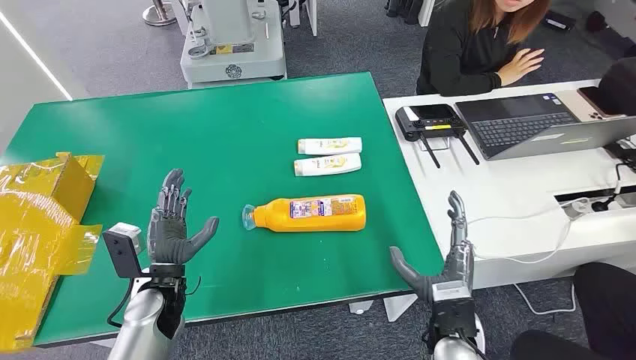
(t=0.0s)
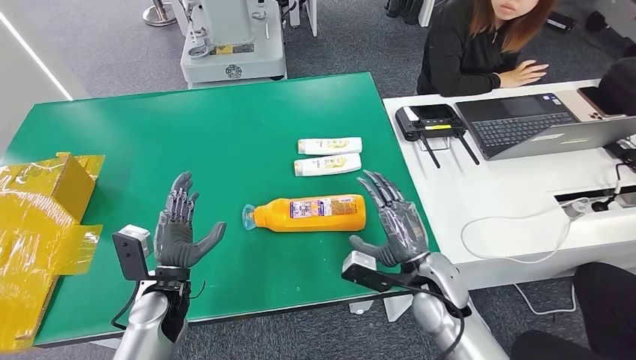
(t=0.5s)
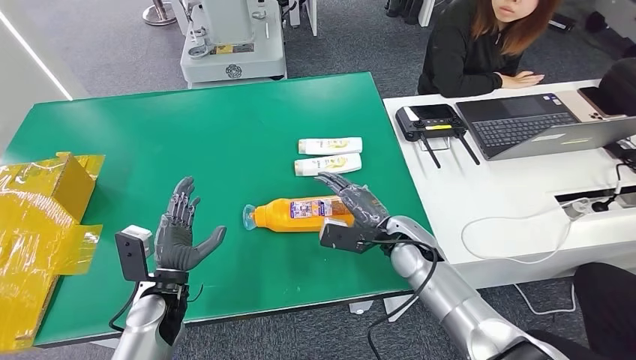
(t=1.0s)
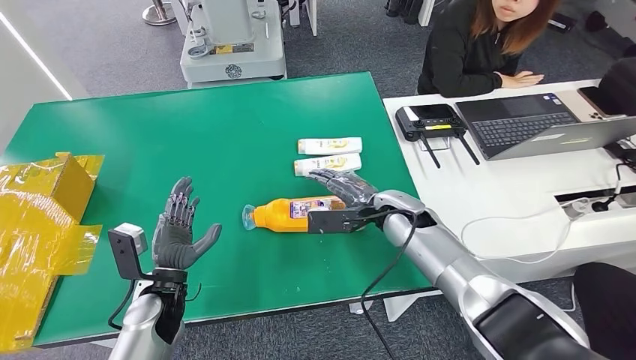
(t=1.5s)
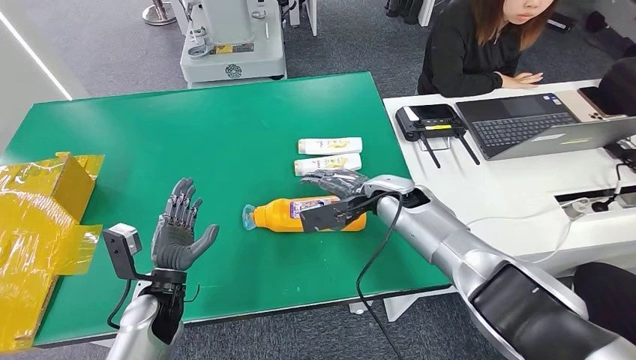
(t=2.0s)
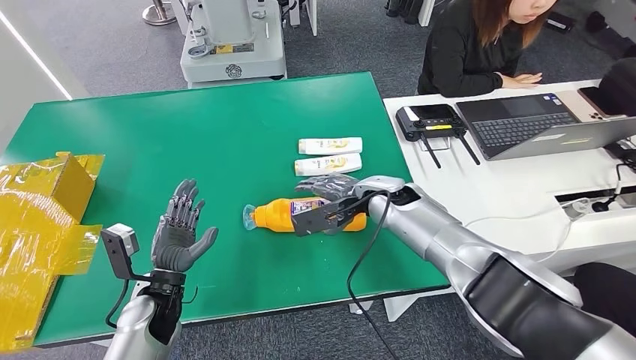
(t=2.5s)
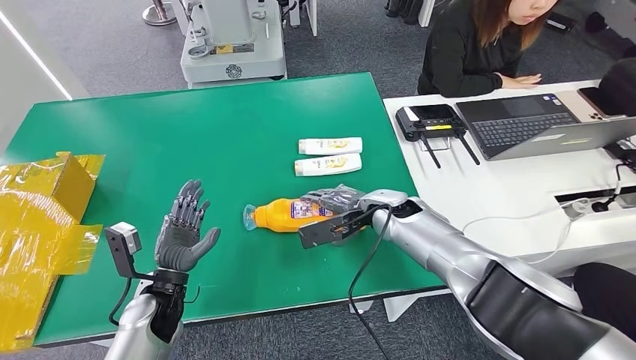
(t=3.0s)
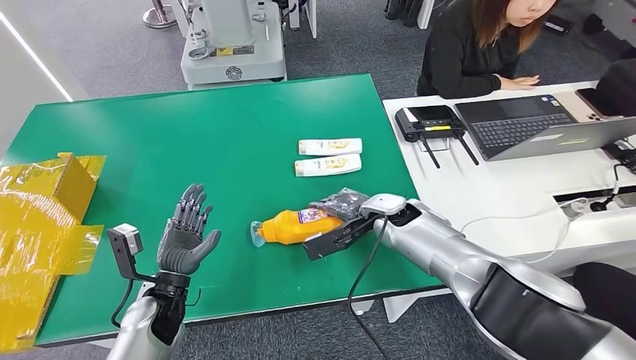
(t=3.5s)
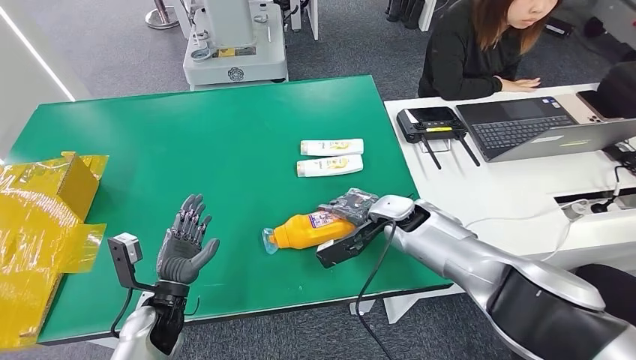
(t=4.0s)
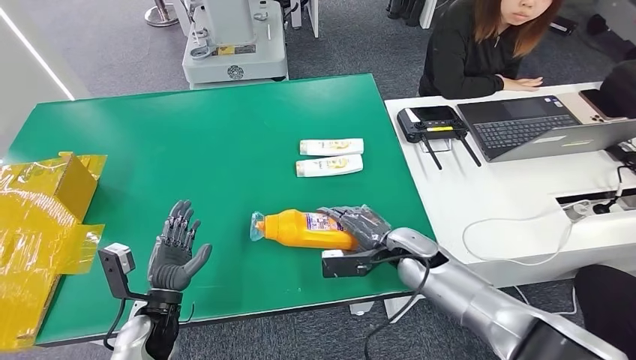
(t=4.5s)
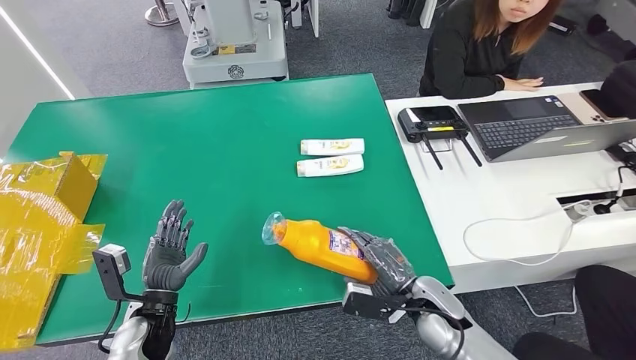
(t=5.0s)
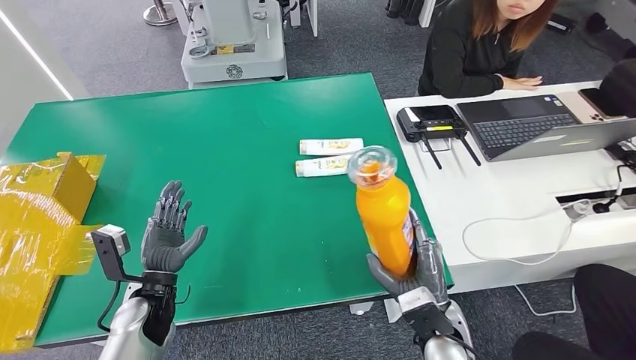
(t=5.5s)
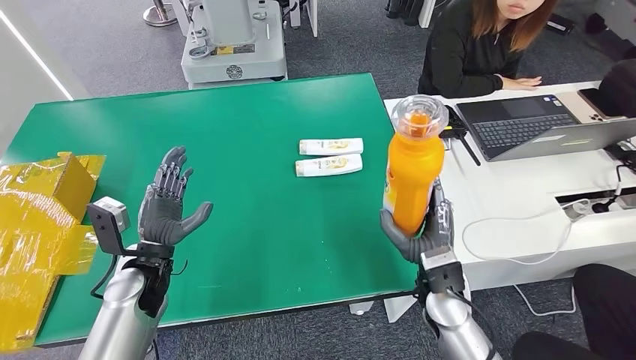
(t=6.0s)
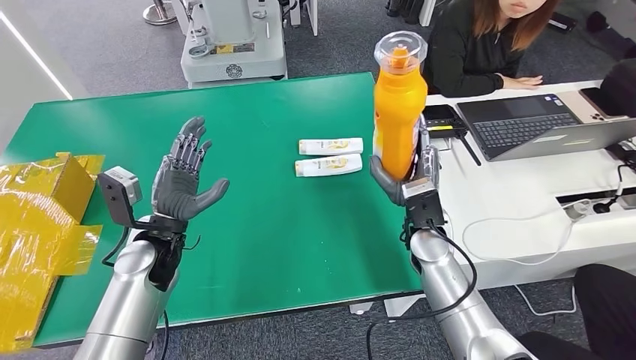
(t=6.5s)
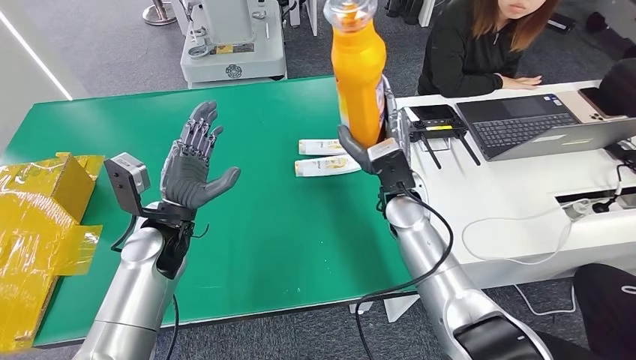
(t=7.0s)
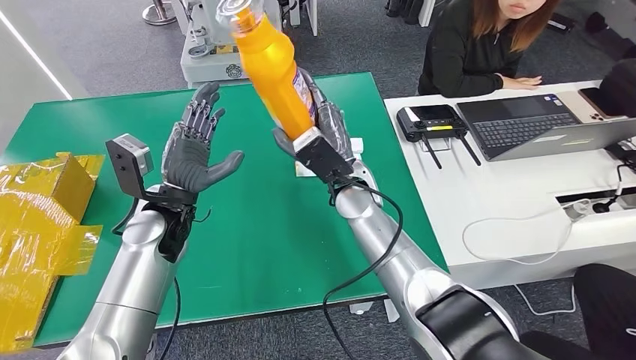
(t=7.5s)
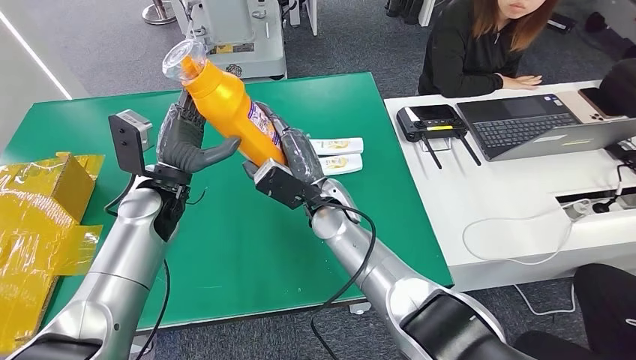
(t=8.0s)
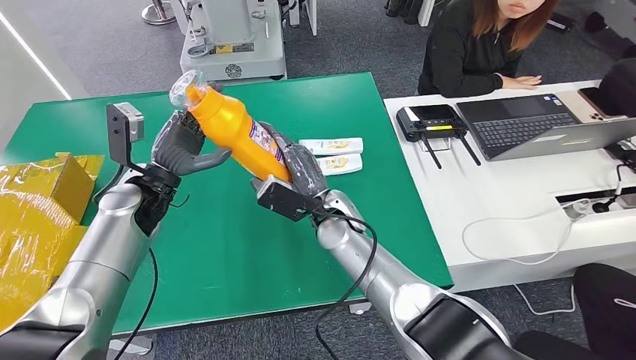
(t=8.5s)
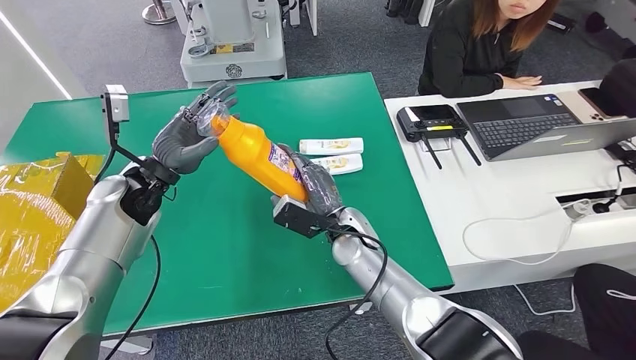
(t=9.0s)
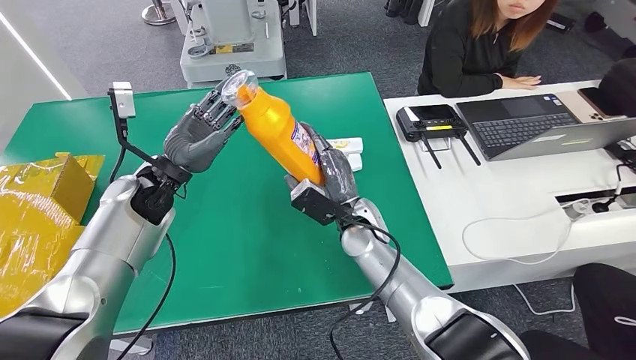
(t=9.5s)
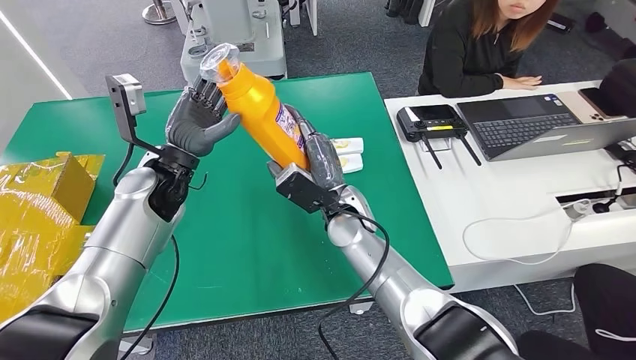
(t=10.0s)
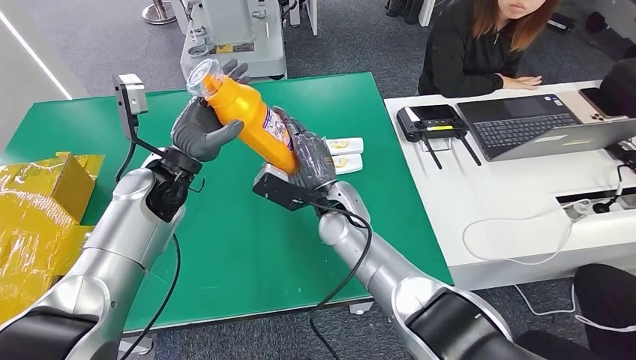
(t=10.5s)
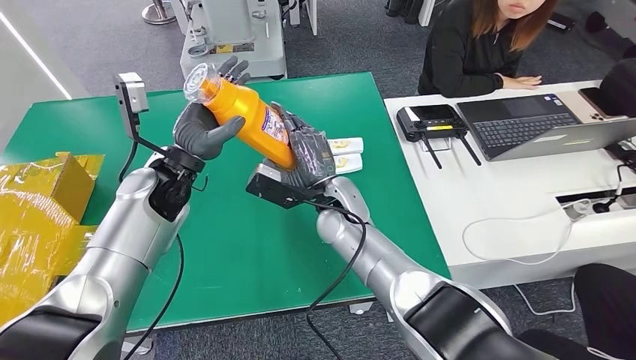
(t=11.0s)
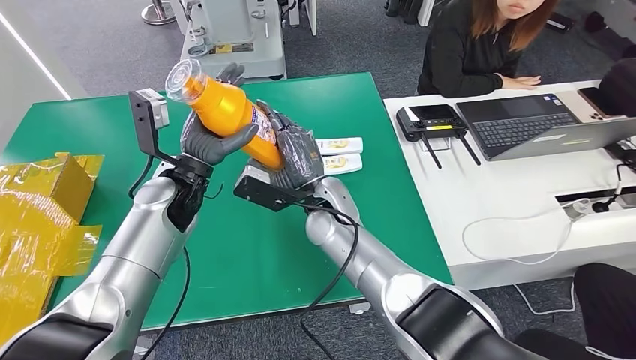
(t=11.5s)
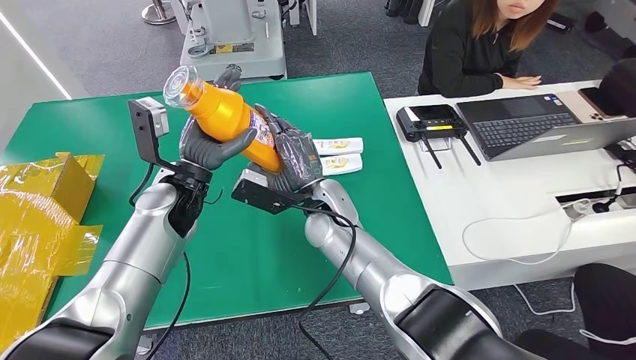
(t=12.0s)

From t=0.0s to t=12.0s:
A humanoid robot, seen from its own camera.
Step, from t=0.0s to t=5.0s: Pick up the bottle from the table.

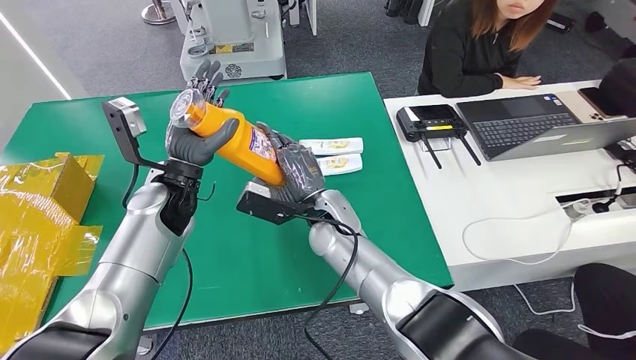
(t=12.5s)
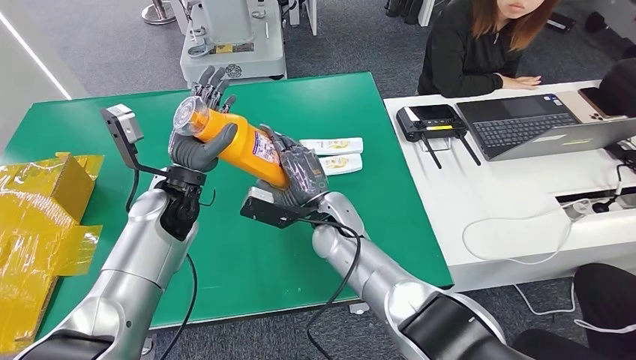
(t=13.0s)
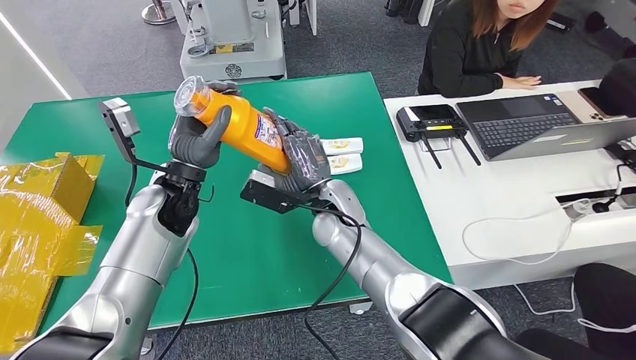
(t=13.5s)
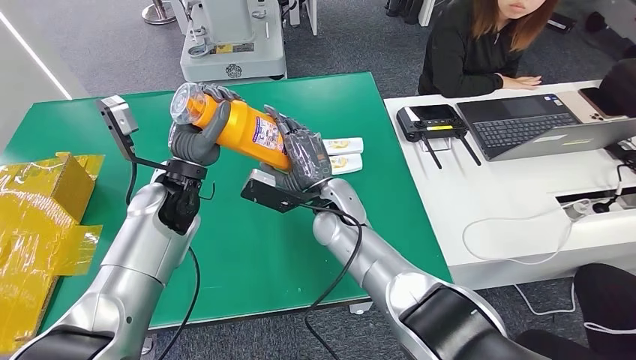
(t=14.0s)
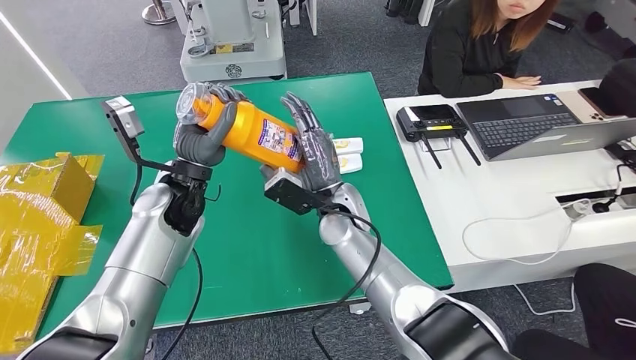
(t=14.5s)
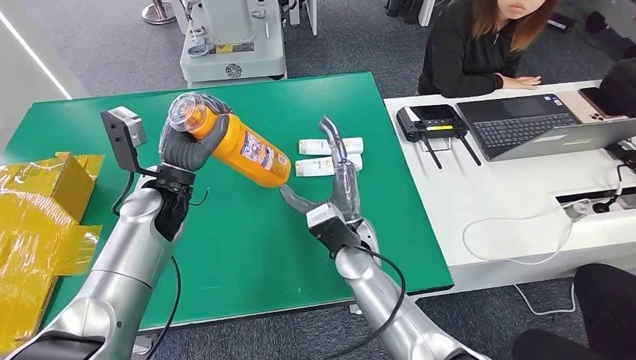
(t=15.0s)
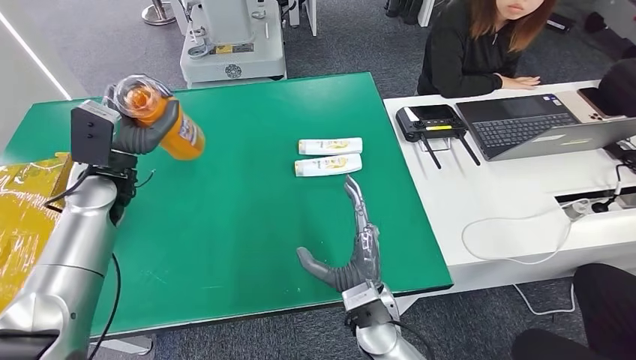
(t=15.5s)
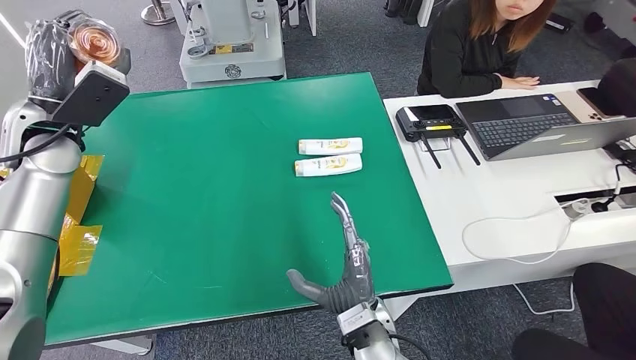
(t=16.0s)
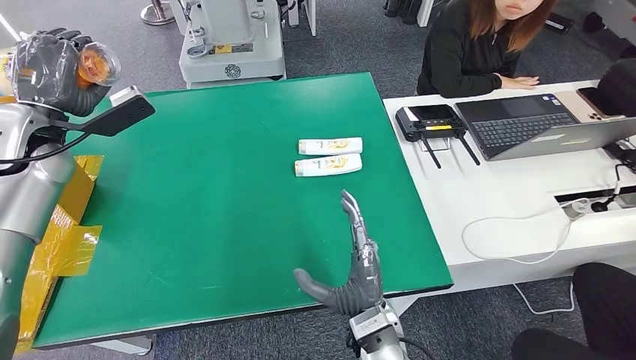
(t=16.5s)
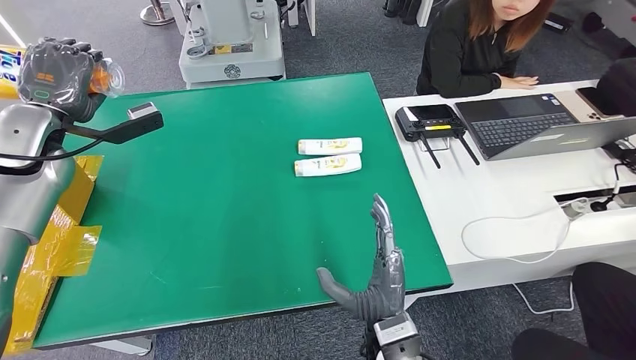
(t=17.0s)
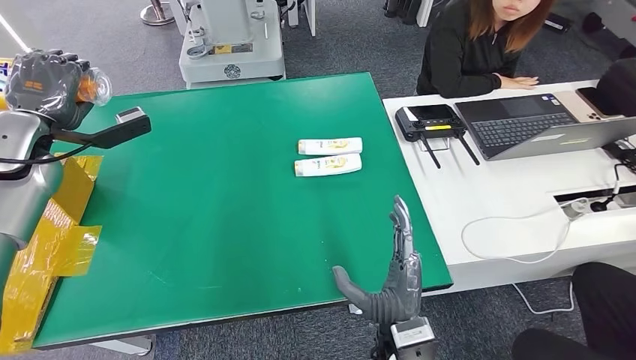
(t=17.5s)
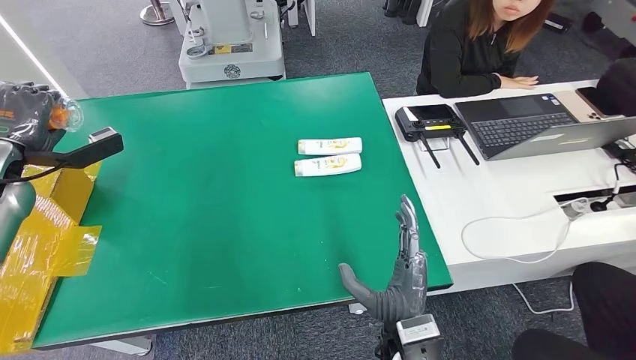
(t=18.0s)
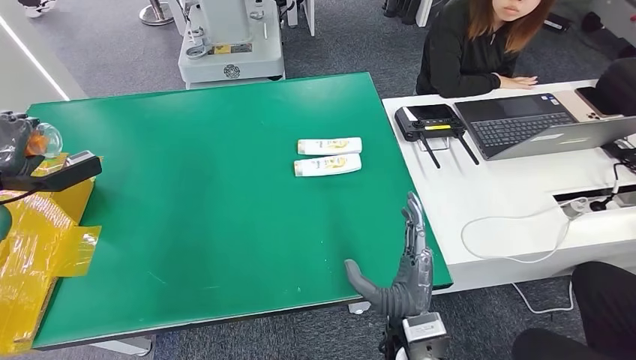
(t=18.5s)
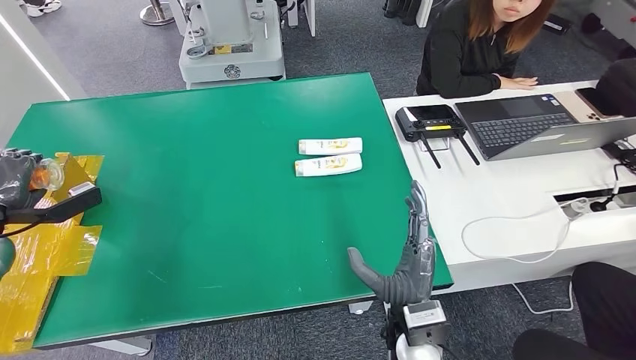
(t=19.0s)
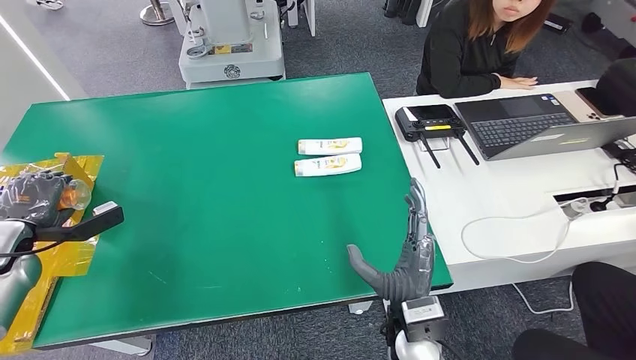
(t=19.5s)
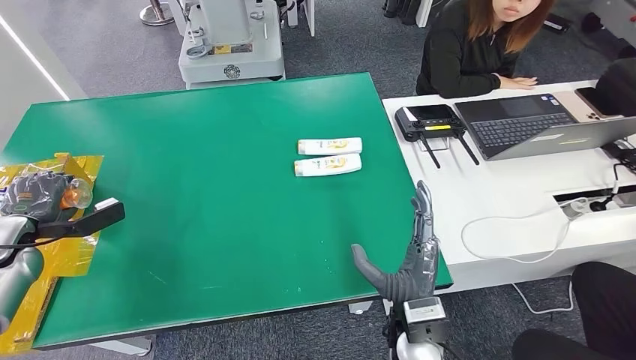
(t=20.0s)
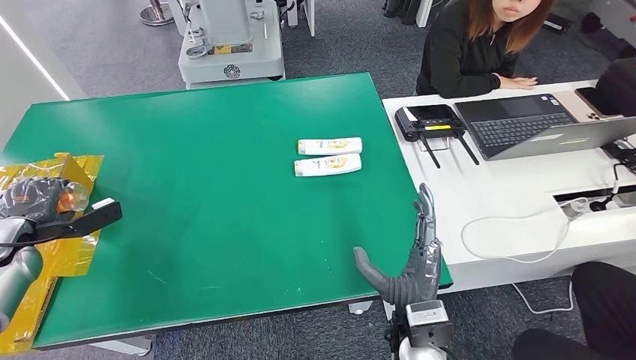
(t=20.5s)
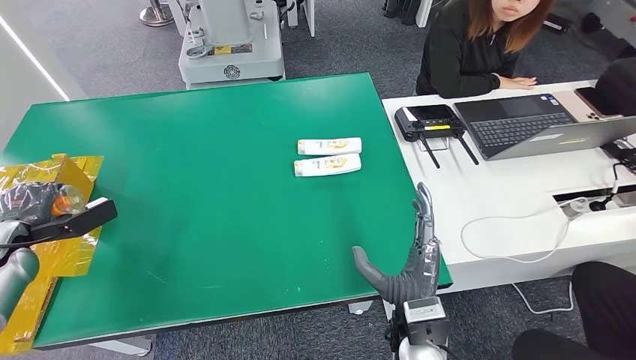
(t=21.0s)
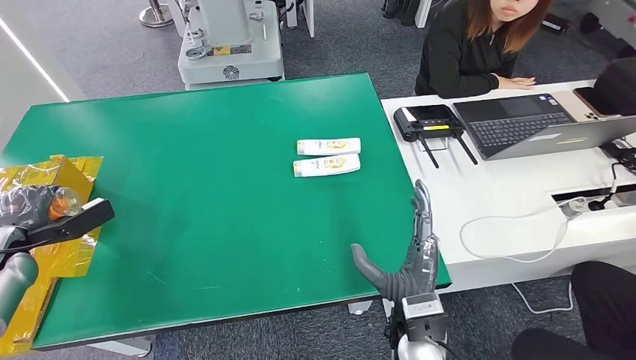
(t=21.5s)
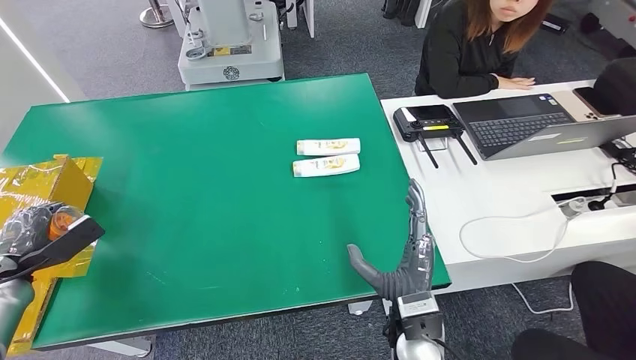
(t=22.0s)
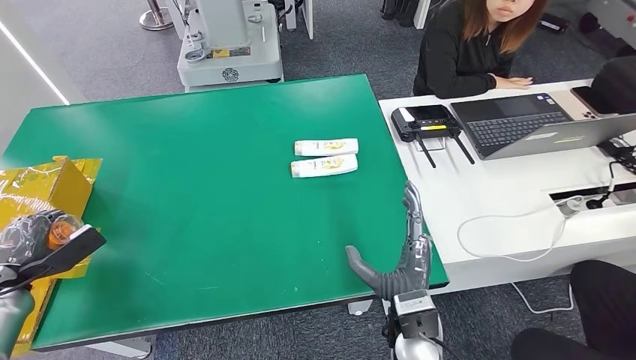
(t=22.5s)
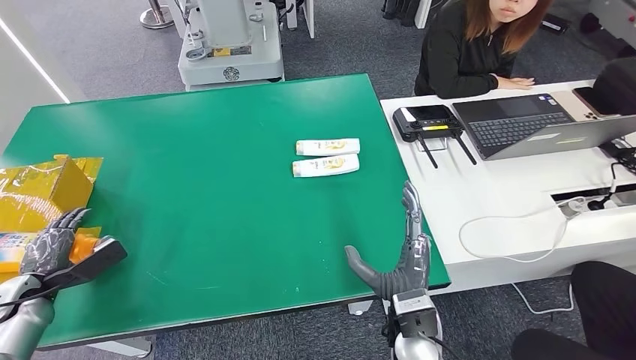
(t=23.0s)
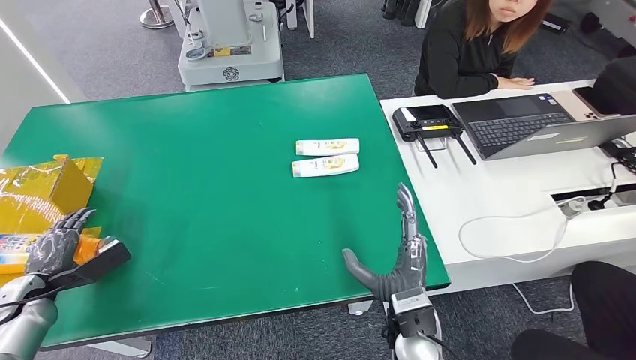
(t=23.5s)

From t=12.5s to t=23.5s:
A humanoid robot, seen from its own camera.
From t=12.5s to t=14.5s: The hands make only small movements.
From t=16.0s to t=18.0s: The left hand goes roughly 15 cm to the left and downward; the right hand shifts by approximately 5 cm.
From t=18.0s to t=20.0s: The left hand shifts approximately 15 cm downward, backward and to the left.
From t=20.0s to t=21.5s: The hands make only small movements.
From t=21.5s to t=23.5s: The left hand moves downward and backward, some 10 cm.
